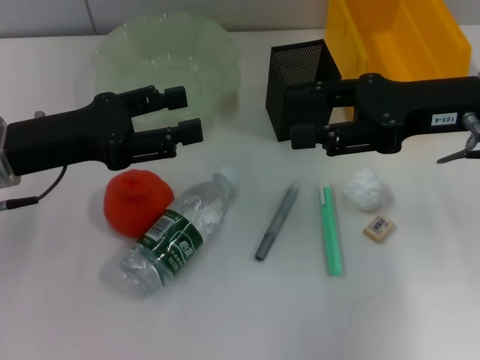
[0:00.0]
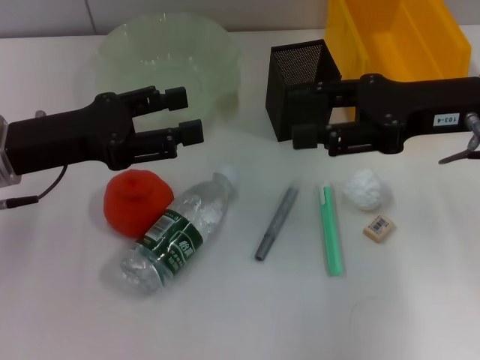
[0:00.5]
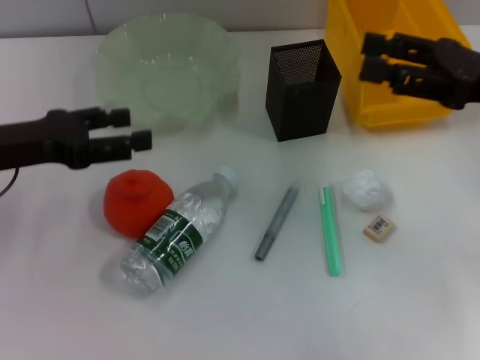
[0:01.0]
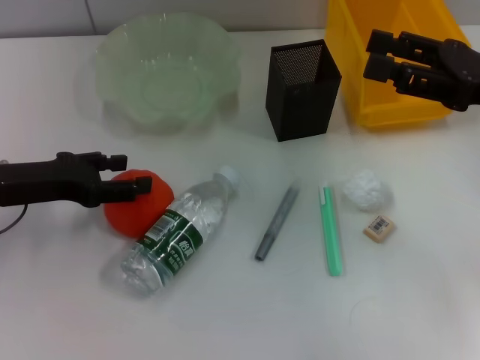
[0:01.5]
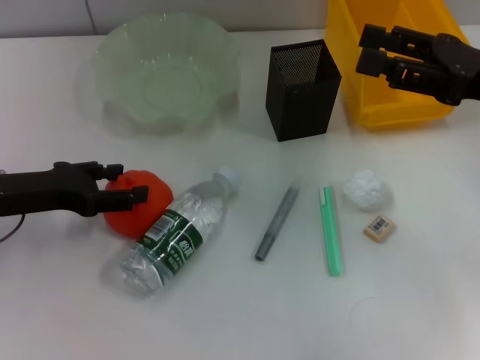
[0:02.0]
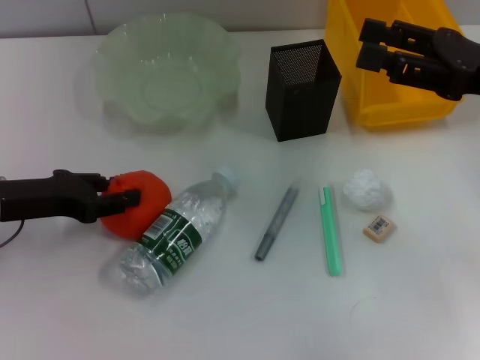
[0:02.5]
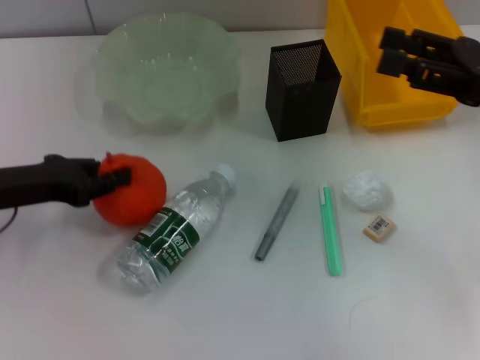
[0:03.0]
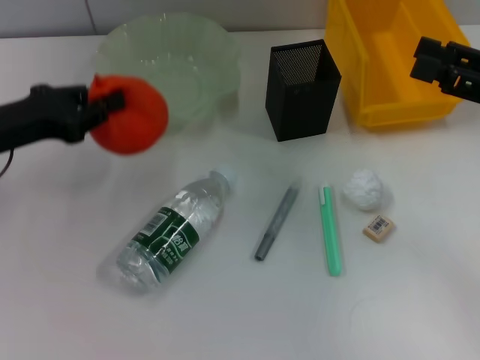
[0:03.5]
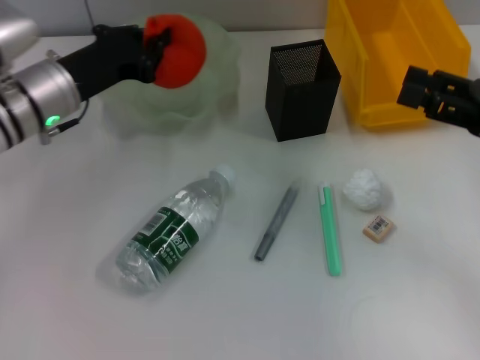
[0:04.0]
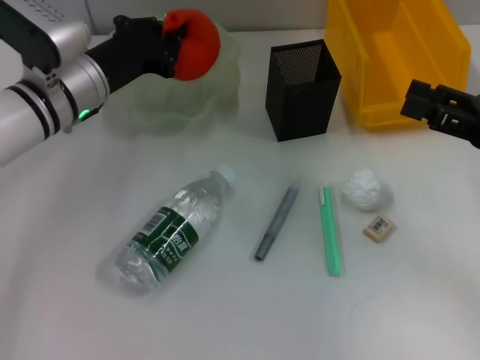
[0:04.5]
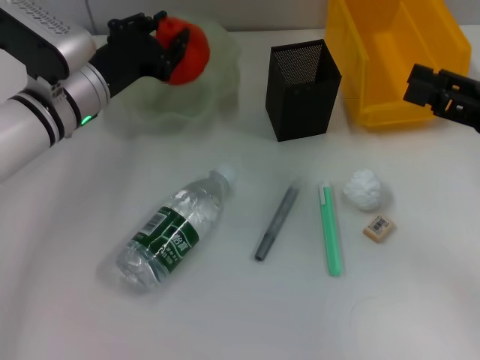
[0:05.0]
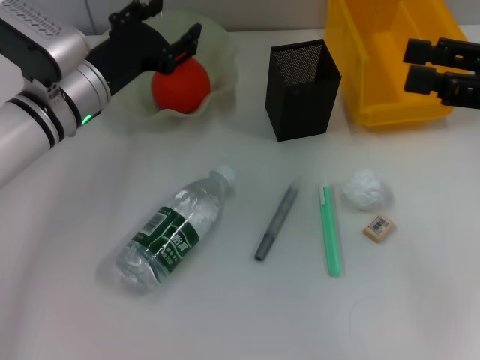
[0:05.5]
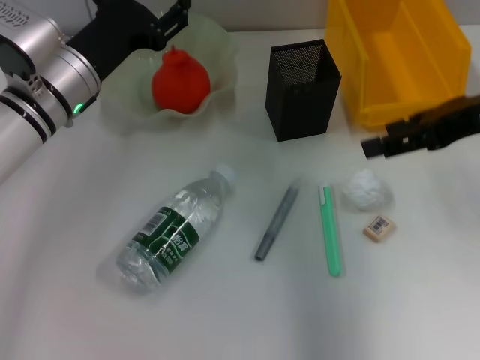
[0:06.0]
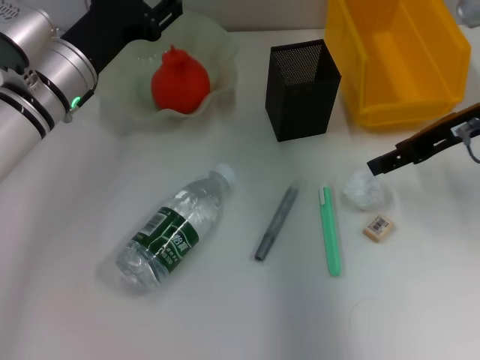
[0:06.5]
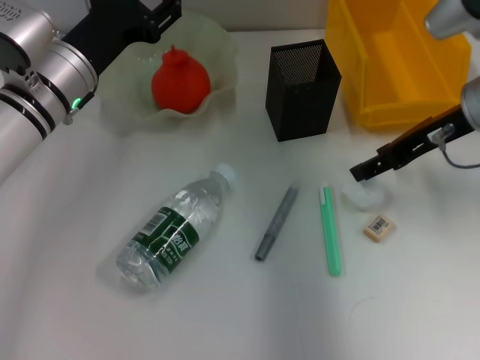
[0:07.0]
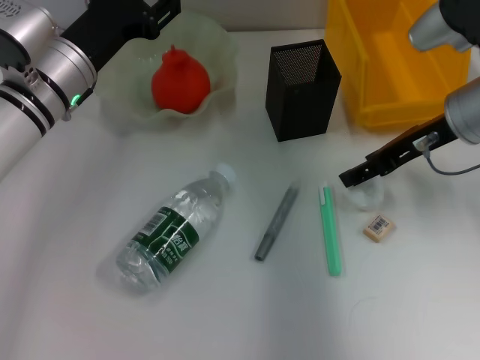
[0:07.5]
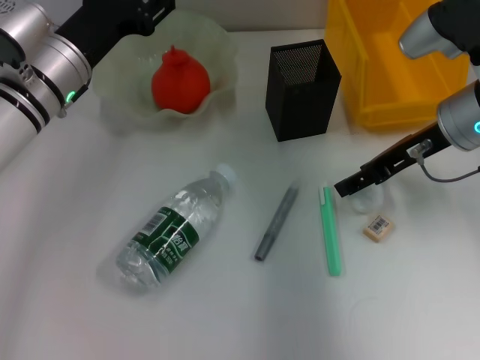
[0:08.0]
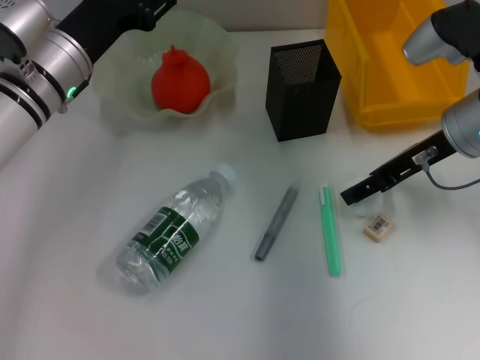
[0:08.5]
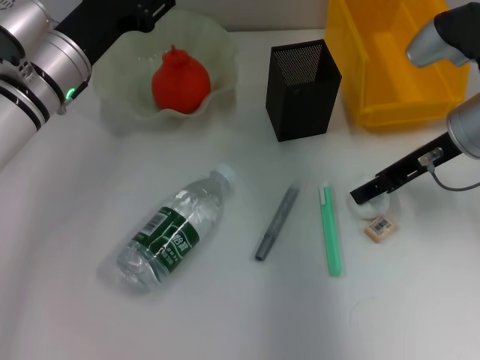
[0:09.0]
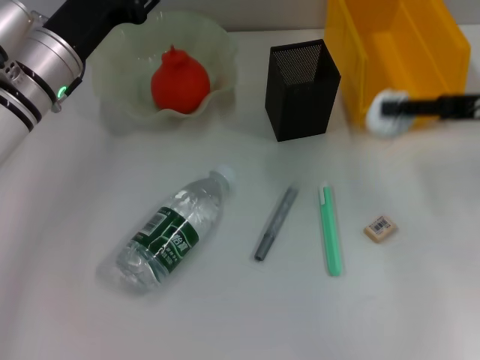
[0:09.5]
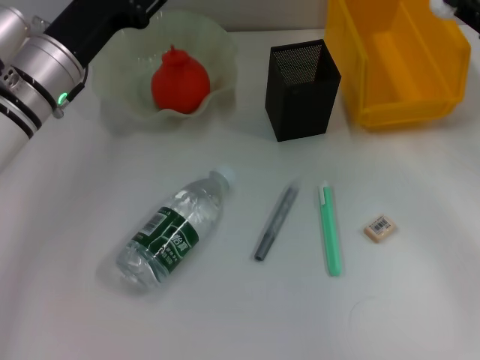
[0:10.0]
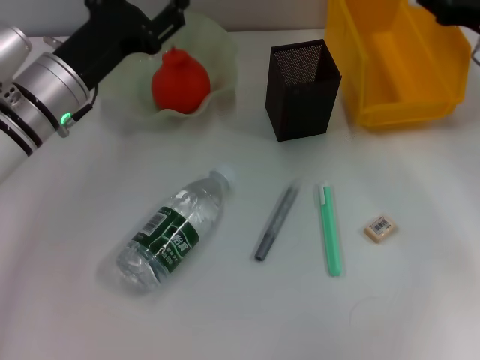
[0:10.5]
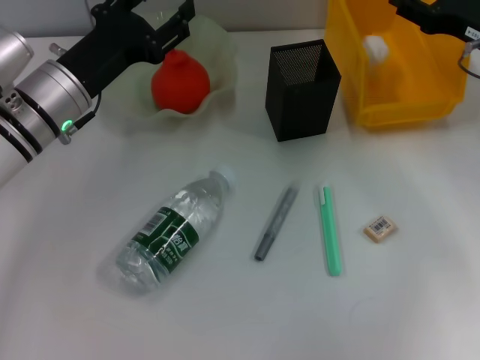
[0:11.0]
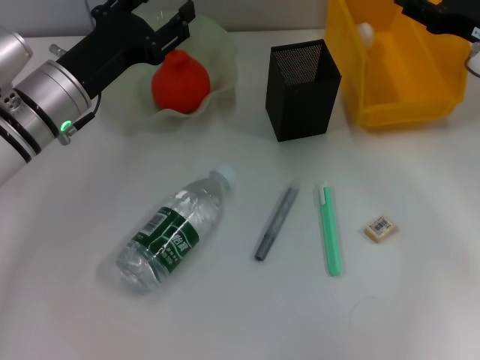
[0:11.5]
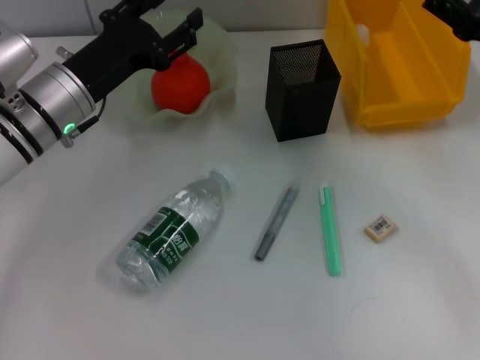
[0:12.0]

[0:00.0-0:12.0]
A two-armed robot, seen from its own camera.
Step, 0.0 to 2.5 s: Grab the orange with the left hand.
Step, 3.0 to 5.0 s: Place the orange into the fruit bowl with the left hand.
Step, 5.5 to 8.5 s: Grab the paper ball with the right hand.
Step, 9.0 to 11.0 s: Place the paper ball into the trash can with the right hand.
0.0 to 2.0 s: The right gripper changes place by roughly 5 cm; the left gripper moves about 5 cm.
2.0 to 4.0 s: The left gripper heads forward and to the right, covering approximately 10 cm, and closes its fingers. The right gripper changes place by approximately 5 cm.
4.0 to 6.0 s: The left gripper opens its fingers. Meanwhile the right gripper travels upward and to the left by roughly 10 cm.
6.0 to 8.0 s: The right gripper is displaced downward and forward by some 10 cm.
8.0 to 10.0 s: The right gripper goes approximately 10 cm to the right, and closes up.

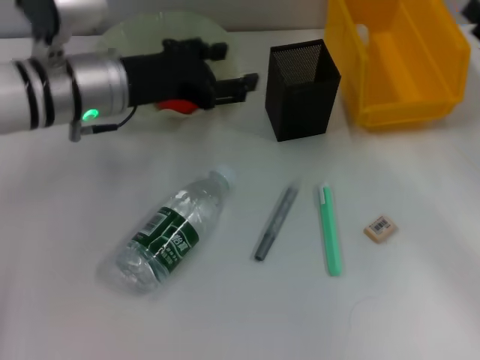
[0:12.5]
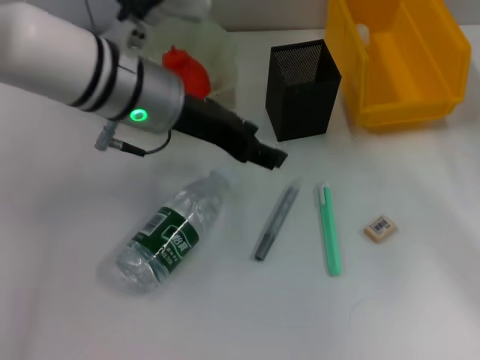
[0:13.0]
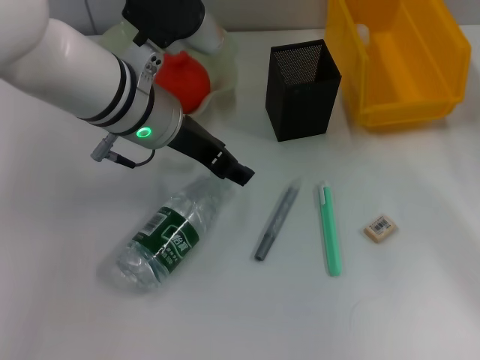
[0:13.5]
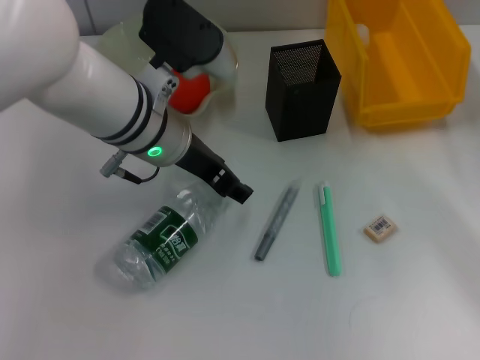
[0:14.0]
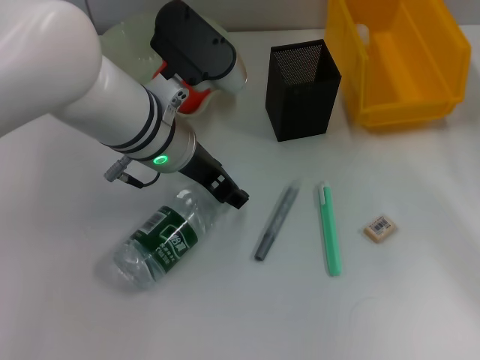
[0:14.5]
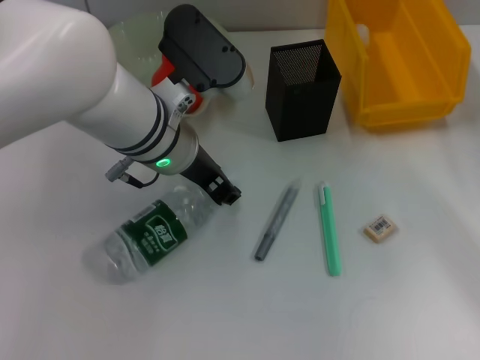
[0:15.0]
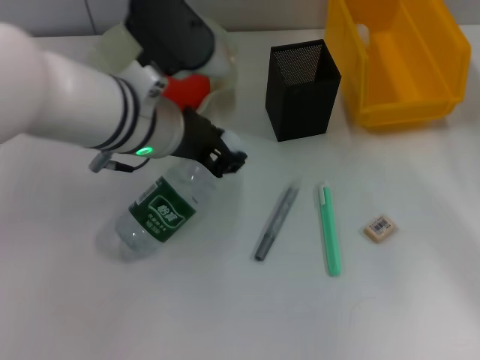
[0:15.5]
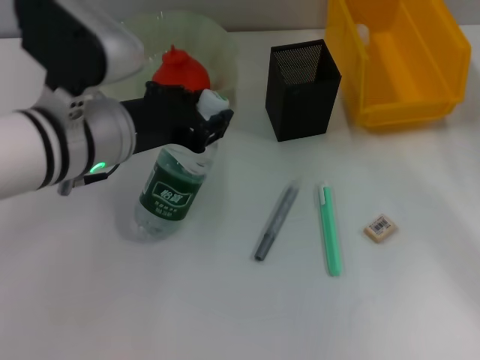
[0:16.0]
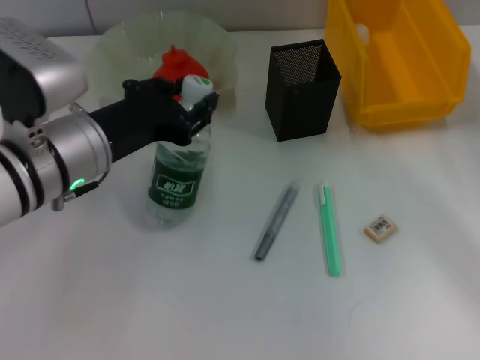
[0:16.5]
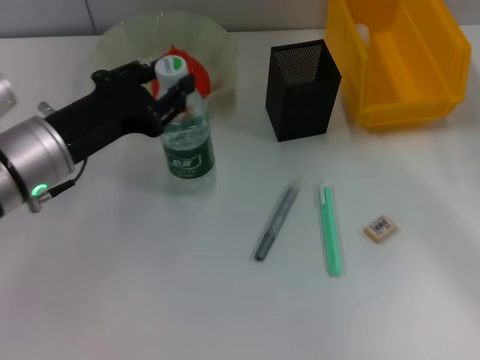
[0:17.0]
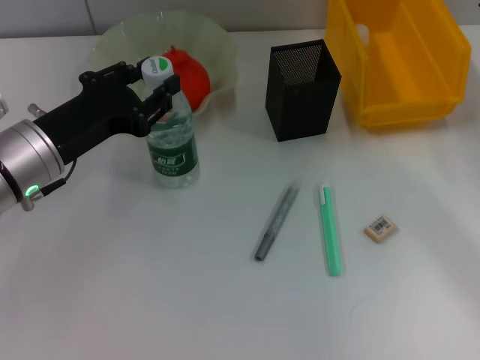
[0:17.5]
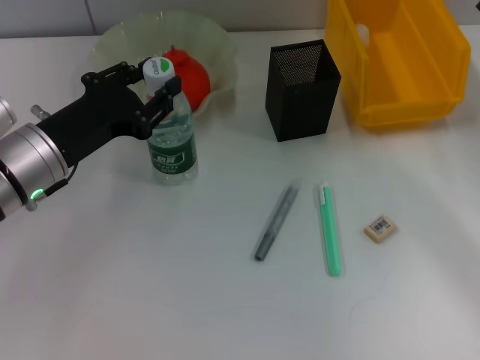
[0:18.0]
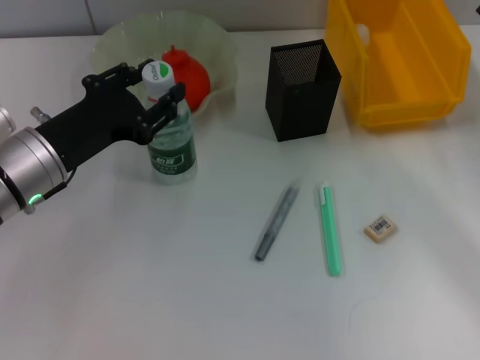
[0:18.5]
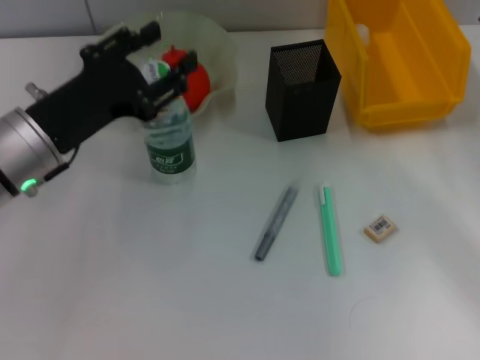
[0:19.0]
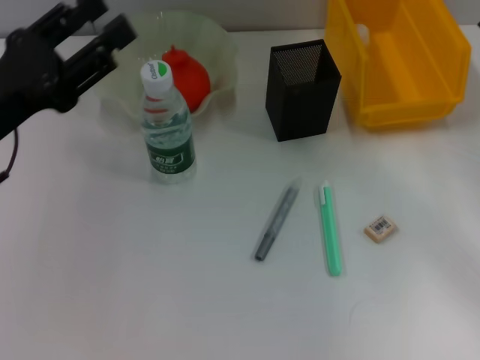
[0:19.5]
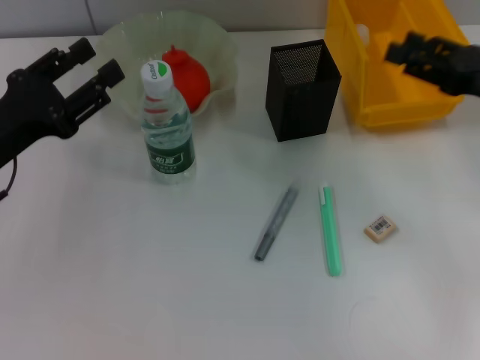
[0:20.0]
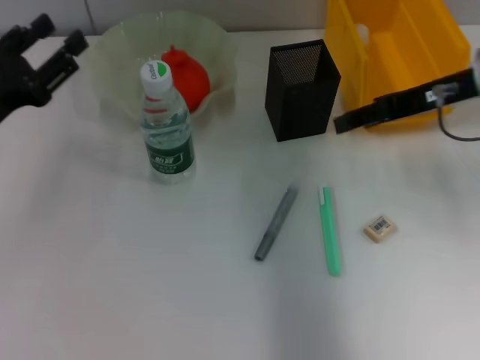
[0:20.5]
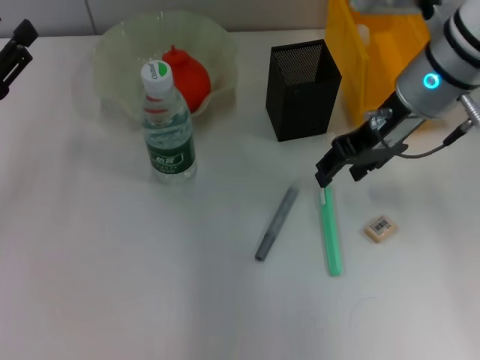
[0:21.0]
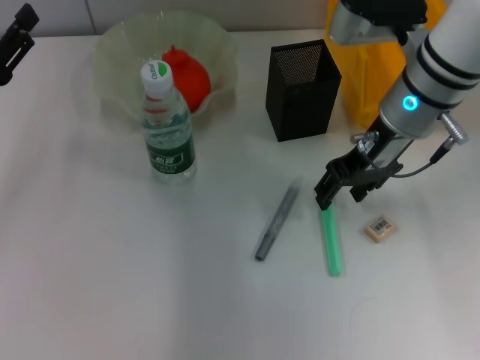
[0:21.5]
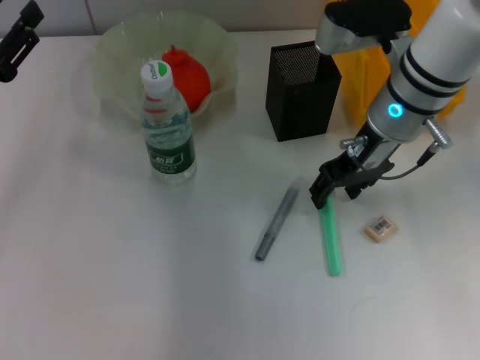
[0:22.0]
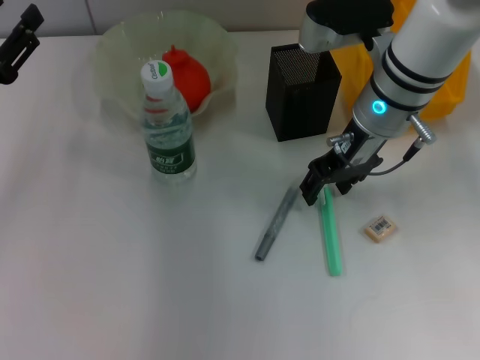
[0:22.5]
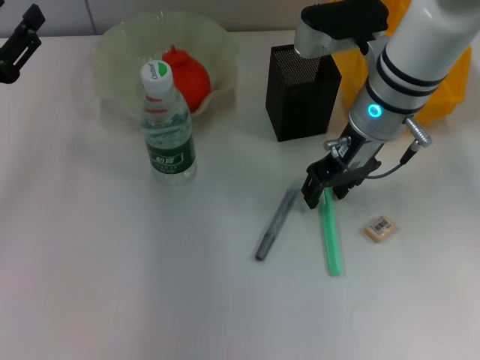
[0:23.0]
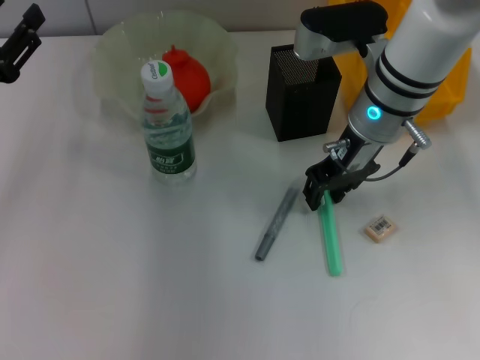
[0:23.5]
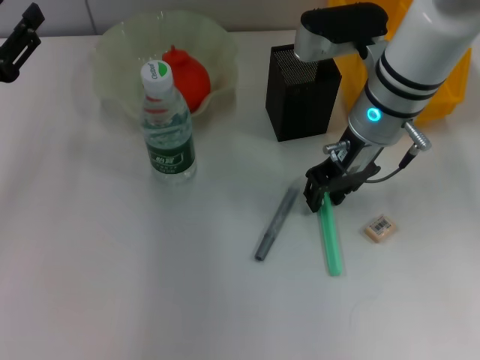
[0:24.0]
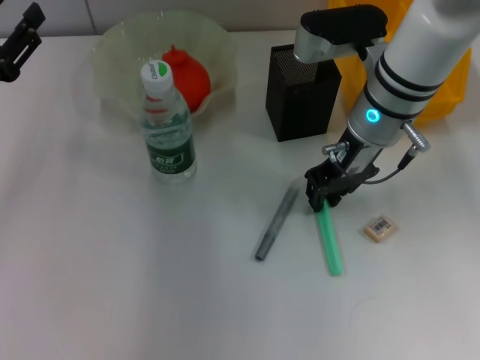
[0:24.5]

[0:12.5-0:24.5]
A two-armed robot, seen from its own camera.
Step, 12.5 to 15.0 s: Grab the water bottle with the left hand.
Step, 15.5 to 19.0 s: Place the water bottle on the table with the left hand.
Step, 19.5 to 24.0 s: Grab the blue utility knife with the right hand.
12.5 to 14.5 s: The left gripper moves to the right, approximately 5 cm.
14.5 to 16.5 s: The left gripper travels to the left and backward by some 10 cm, and closes its fingers.
16.5 to 18.5 s: The left gripper shifts by about 5 cm.
18.5 to 20.5 s: The right gripper shifts about 15 cm to the left, upward and forward; the left gripper travels to the left by about 10 cm.
20.5 to 22.5 s: The right gripper travels to the left by roughly 10 cm.
22.5 to 24.5 s: The right gripper closes up.

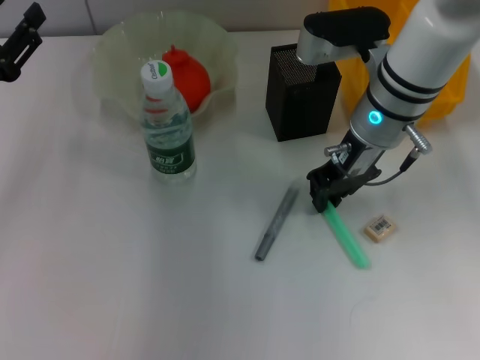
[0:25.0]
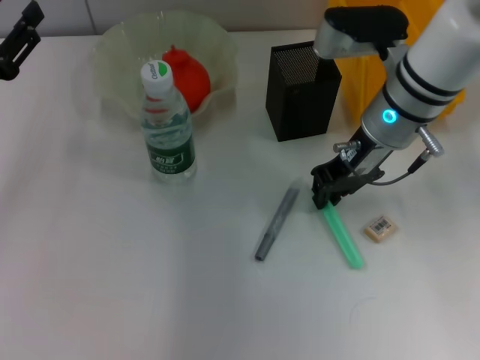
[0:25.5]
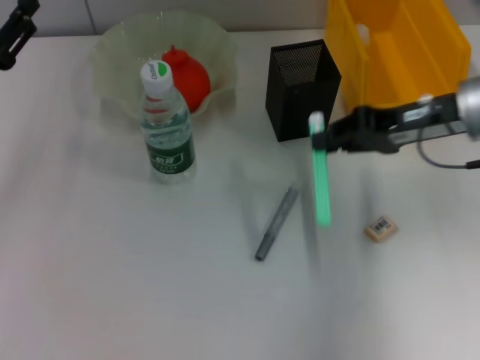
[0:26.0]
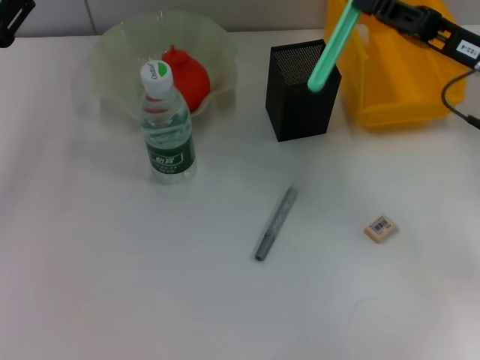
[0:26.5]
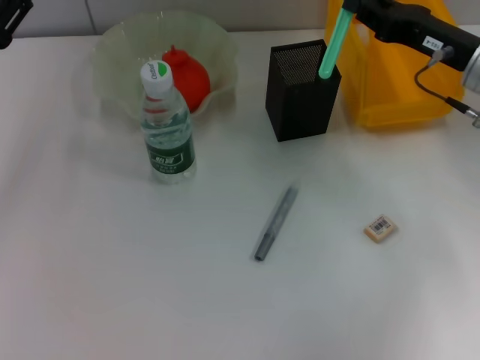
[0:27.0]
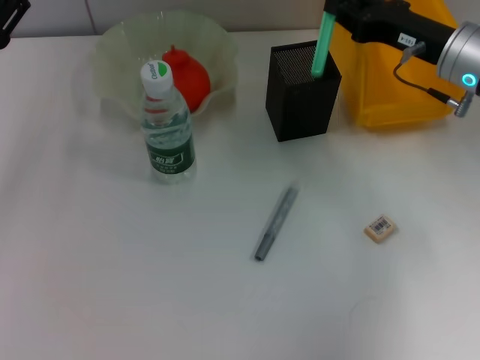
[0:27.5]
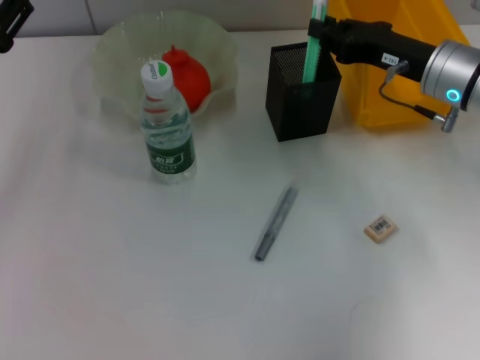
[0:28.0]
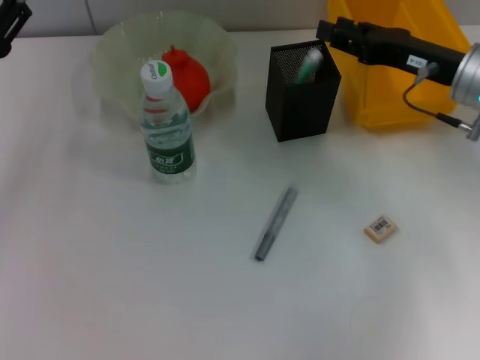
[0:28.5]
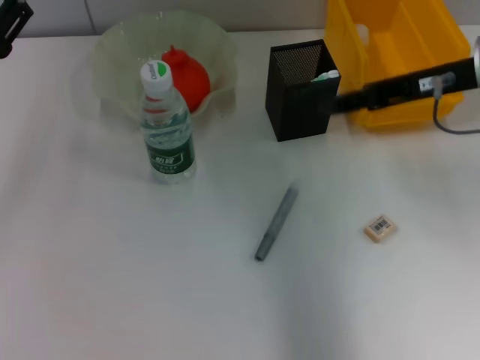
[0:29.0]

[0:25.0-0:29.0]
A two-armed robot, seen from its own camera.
Step, 25.0 to 28.0 s: Place the blue utility knife into the pen holder with the right hand.
25.0 to 27.0 s: The right gripper travels to the right by approximately 15 cm.
27.0 to 29.0 s: The right gripper moves upward, roughly 10 cm, and opens up.
